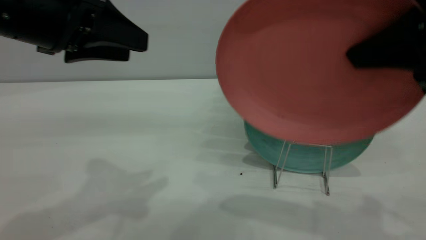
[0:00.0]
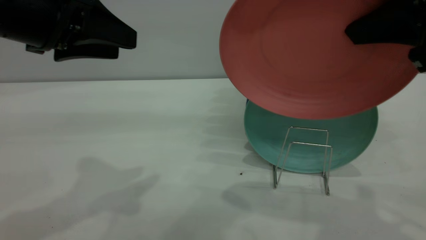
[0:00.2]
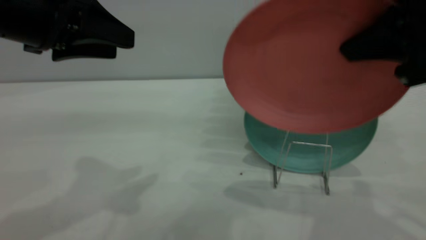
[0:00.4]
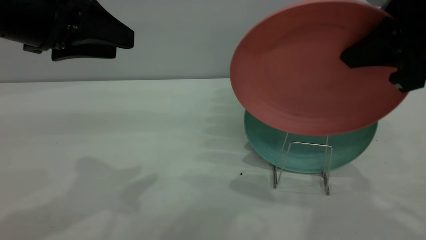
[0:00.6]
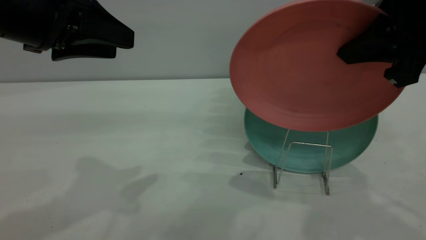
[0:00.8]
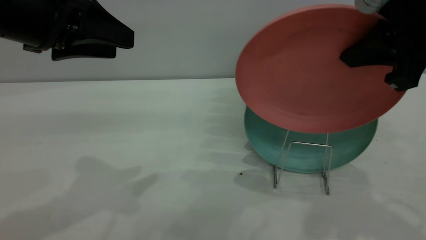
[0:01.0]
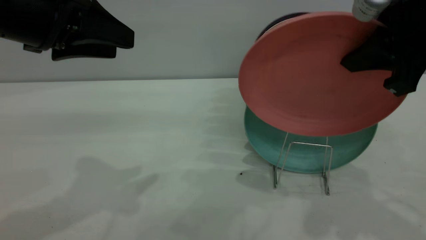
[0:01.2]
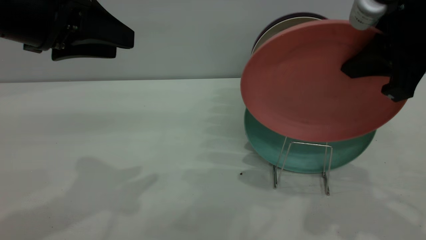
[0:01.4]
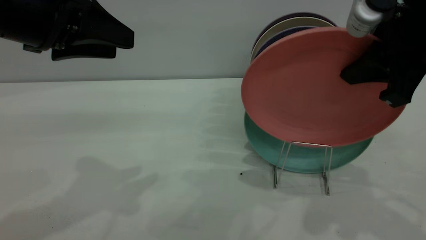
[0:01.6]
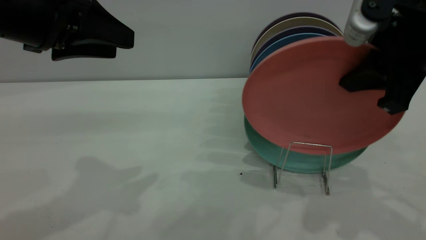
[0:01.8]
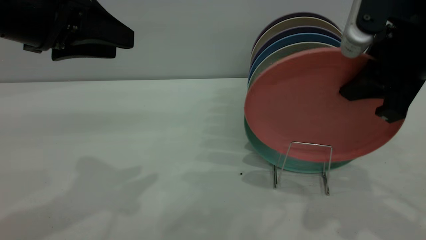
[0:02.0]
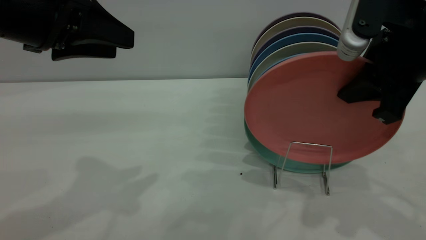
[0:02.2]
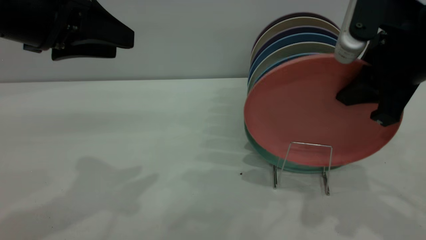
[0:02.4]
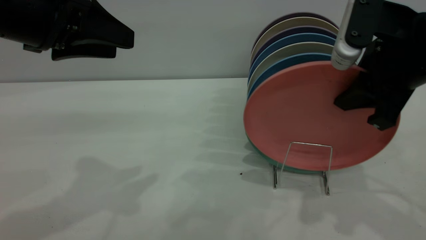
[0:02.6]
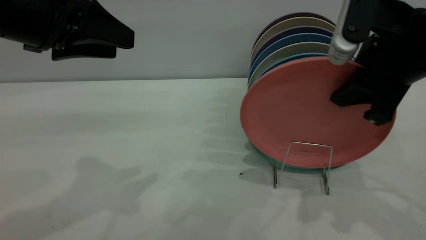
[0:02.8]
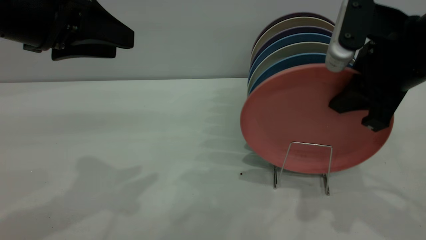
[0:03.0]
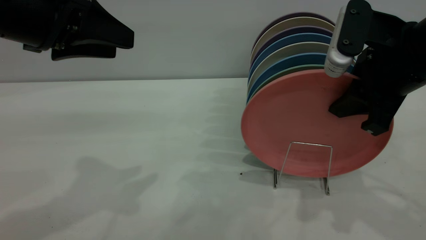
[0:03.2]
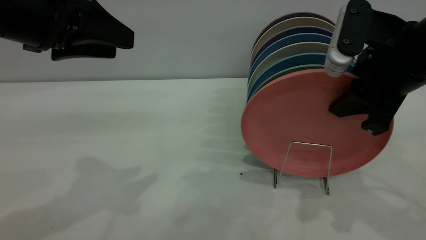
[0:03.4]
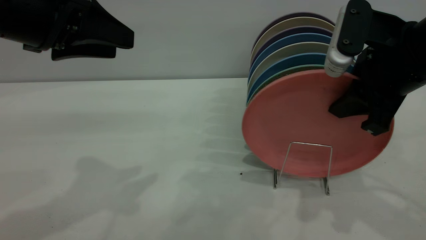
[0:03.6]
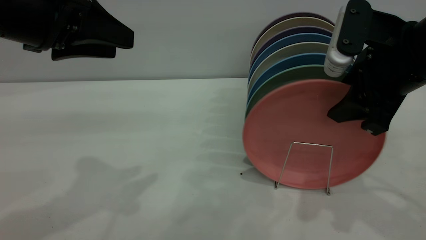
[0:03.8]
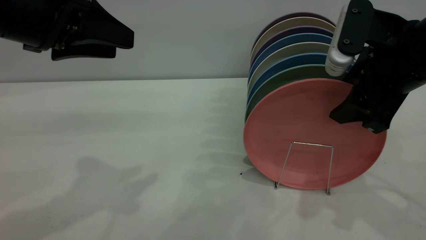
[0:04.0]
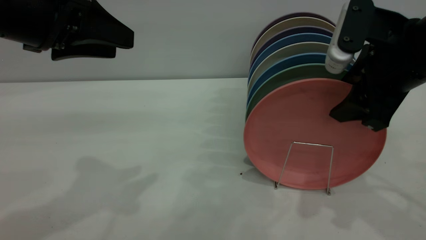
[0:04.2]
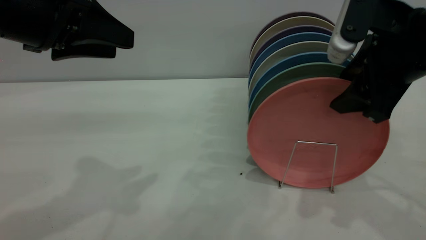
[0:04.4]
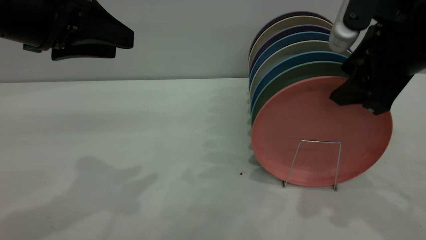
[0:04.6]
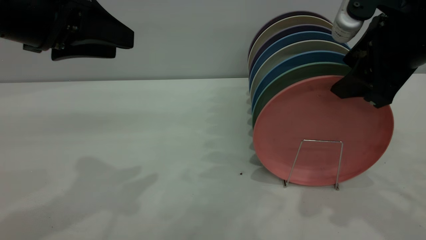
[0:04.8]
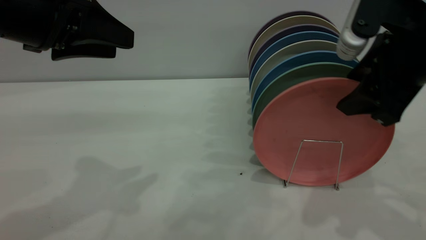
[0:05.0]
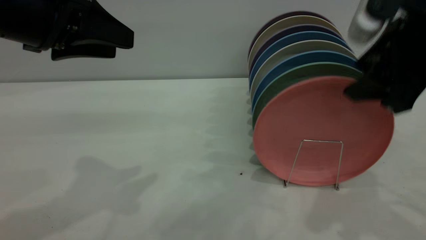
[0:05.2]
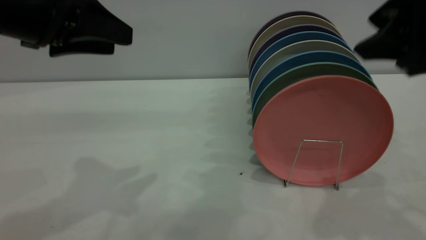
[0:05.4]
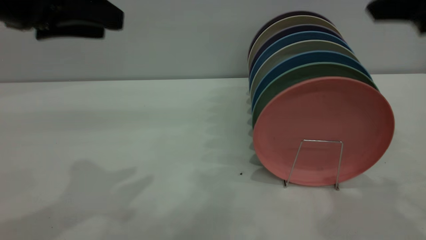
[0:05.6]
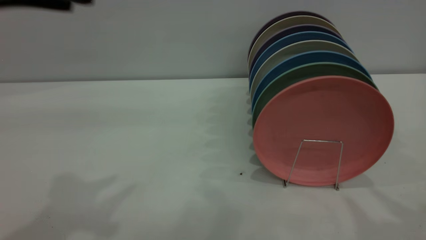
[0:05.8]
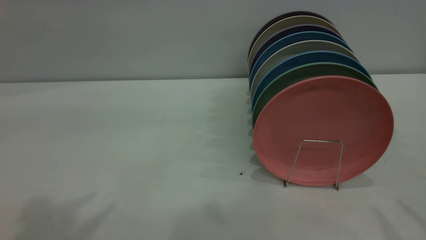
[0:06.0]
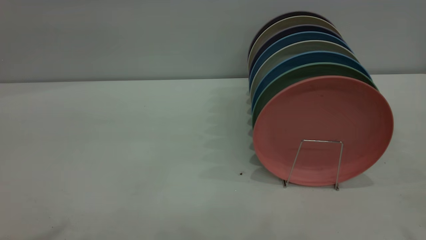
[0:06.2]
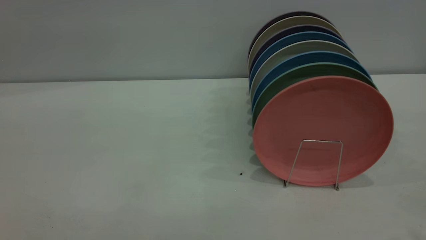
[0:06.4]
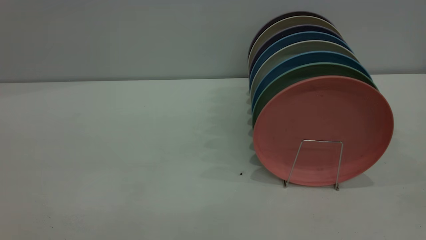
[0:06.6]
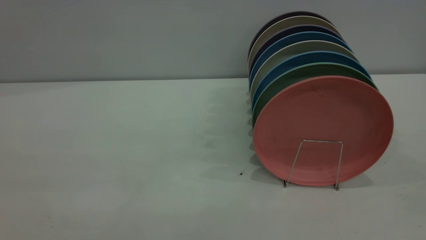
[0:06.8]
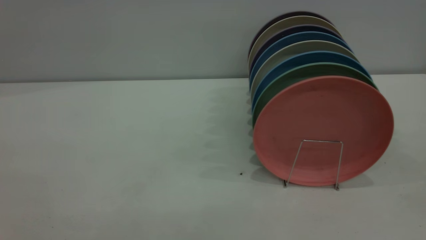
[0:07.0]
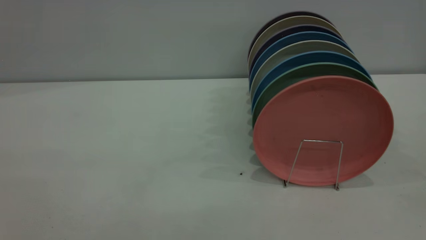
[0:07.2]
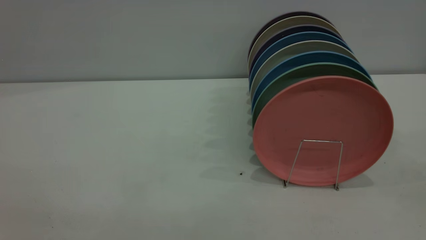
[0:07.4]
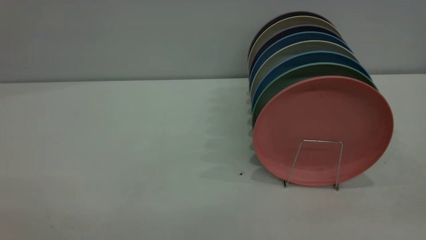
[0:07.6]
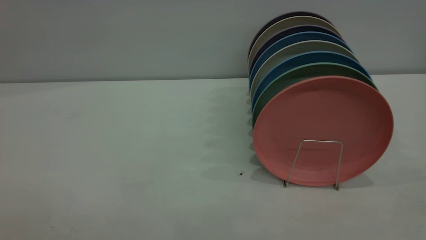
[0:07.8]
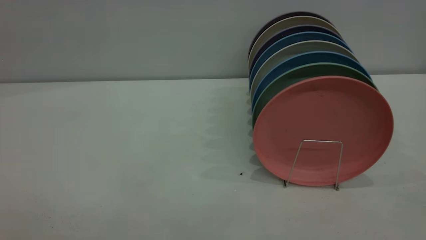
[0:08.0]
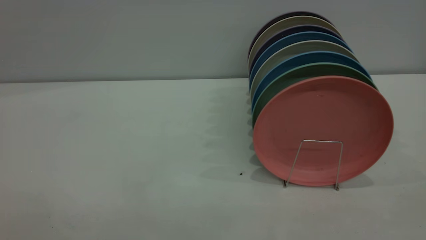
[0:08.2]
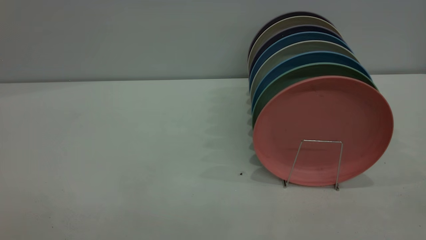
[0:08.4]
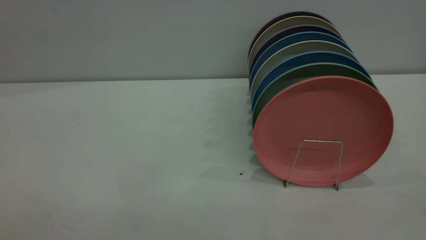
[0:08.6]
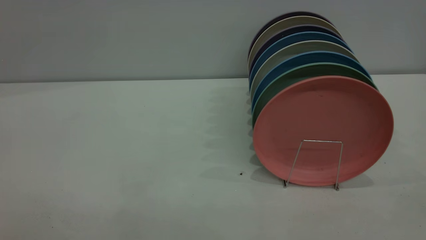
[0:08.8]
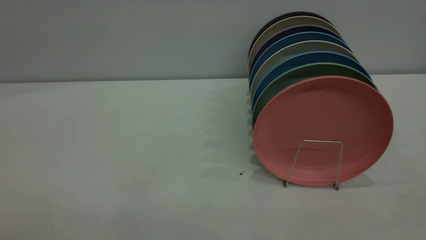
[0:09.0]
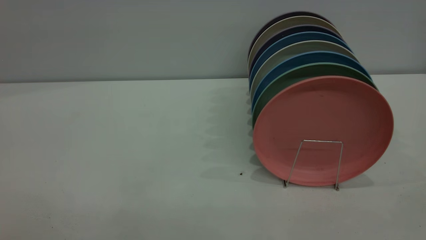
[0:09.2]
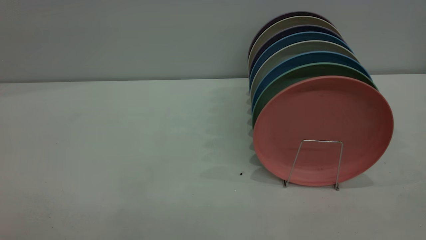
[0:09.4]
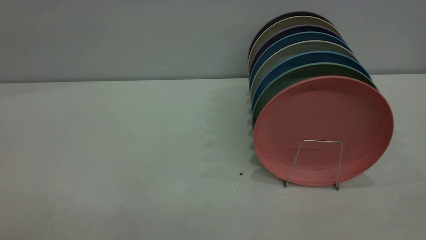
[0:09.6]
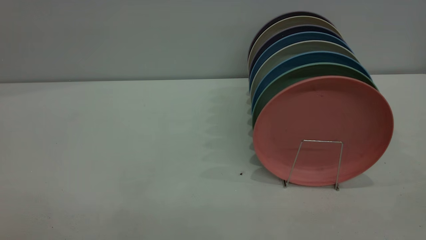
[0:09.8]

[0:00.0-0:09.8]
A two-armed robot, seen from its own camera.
Task of the whole recording: put the plate on the plate rack.
Step, 0:00.0 to 0:05.4: Place the plate on the shelf.
0:00.0 to 0:01.4: The right gripper shifts roughly 5 cm forward.
0:01.4 to 0:02.8: The grippers make only small movements.
0:02.8 to 0:04.2: The right gripper opens.
0:04.2 to 0:05.6: The right gripper travels upward and backward by roughly 15 cm.
0:05.6 to 0:07.0: The left gripper shifts approximately 30 cm backward and upward. The right gripper travels backward and upward by some 15 cm, and closes.

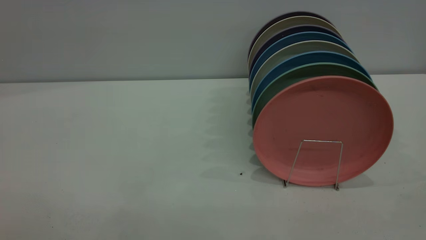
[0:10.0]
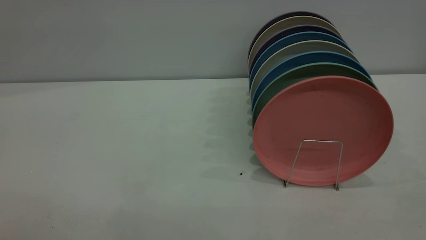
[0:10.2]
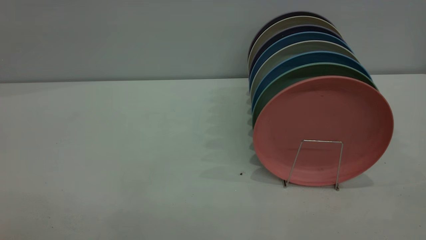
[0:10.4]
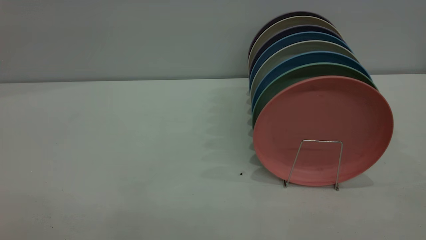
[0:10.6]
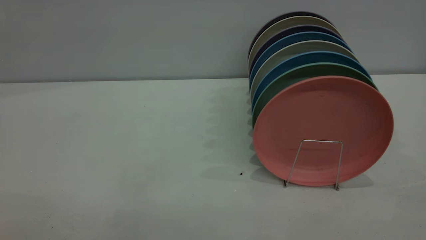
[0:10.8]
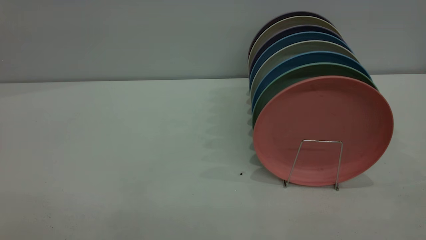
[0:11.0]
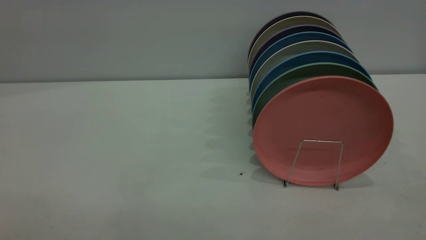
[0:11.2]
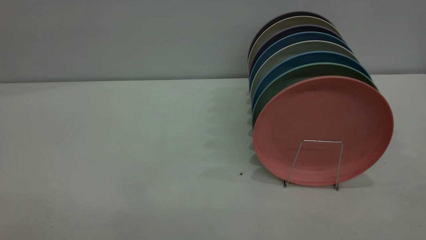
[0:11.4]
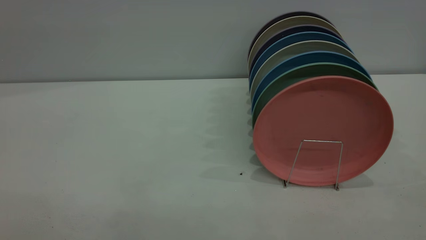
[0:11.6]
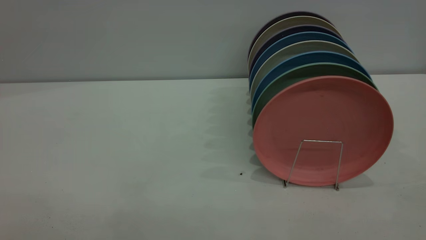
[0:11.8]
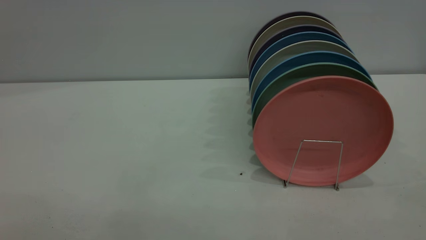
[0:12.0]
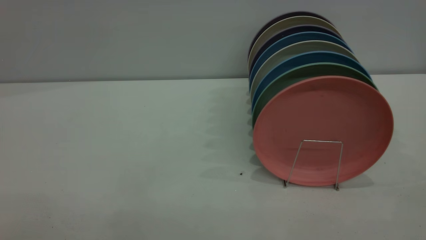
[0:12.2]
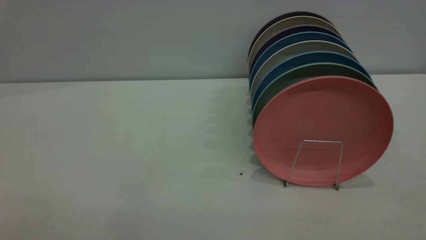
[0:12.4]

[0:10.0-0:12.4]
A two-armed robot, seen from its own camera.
Task of the whole recording: put the plate on the plate rack.
0:11.2 to 0:12.4: Neither gripper changes place.
